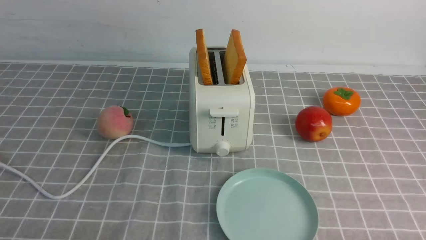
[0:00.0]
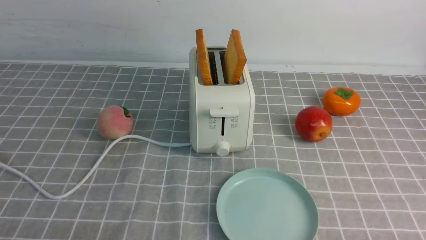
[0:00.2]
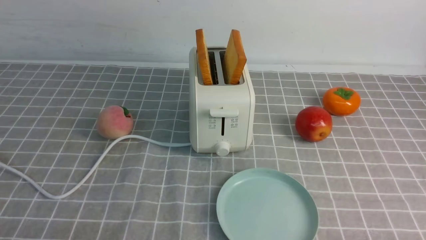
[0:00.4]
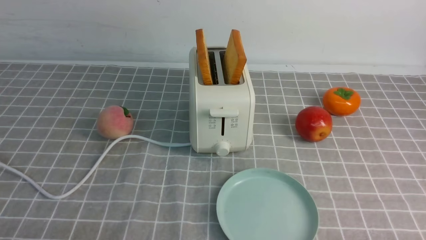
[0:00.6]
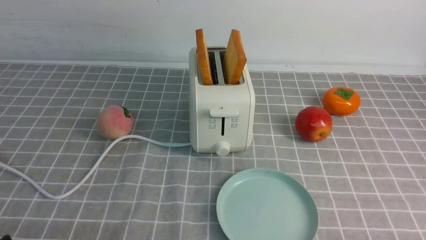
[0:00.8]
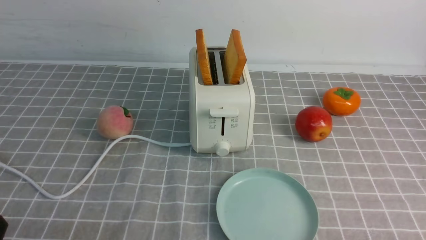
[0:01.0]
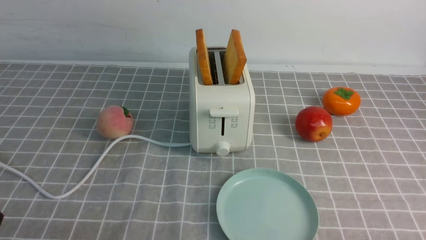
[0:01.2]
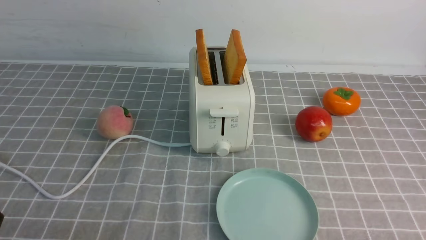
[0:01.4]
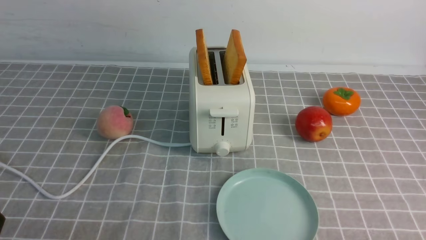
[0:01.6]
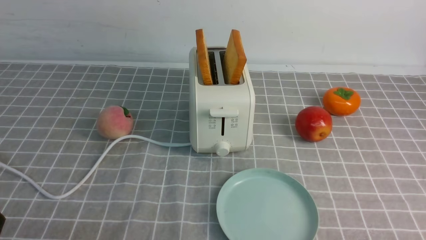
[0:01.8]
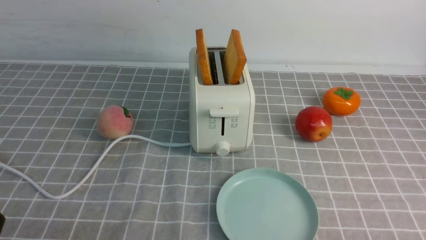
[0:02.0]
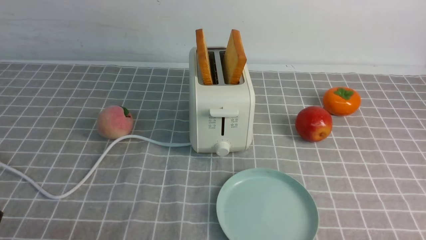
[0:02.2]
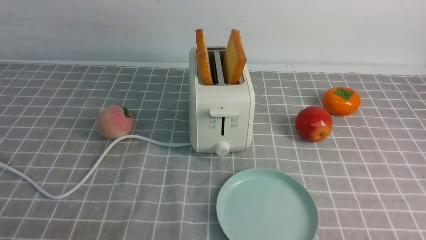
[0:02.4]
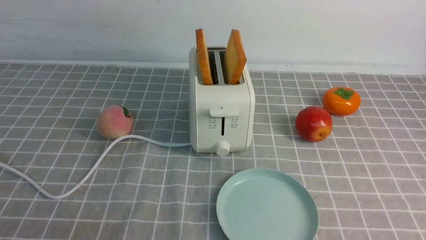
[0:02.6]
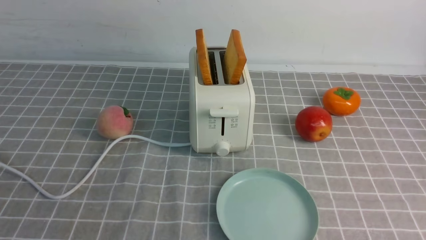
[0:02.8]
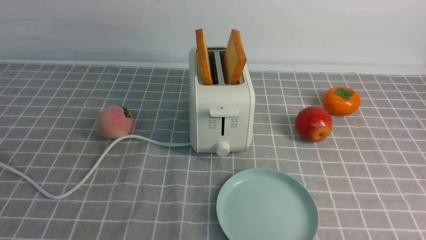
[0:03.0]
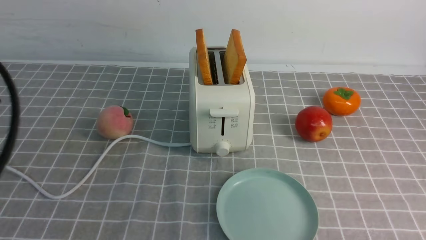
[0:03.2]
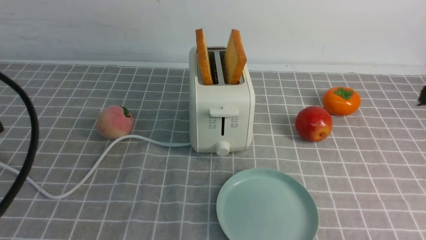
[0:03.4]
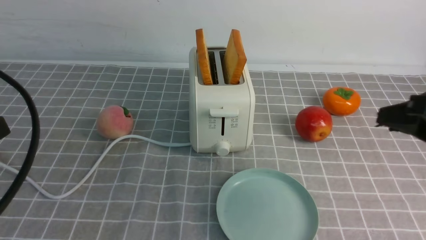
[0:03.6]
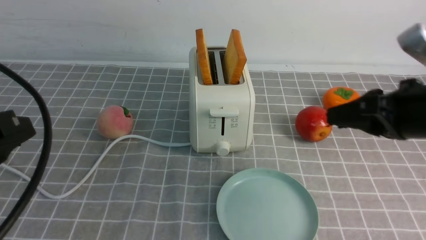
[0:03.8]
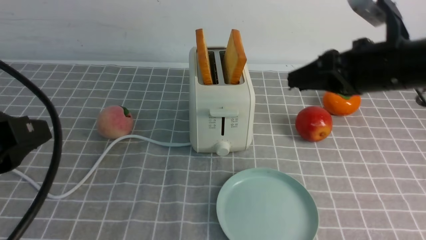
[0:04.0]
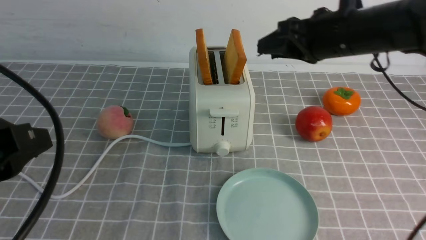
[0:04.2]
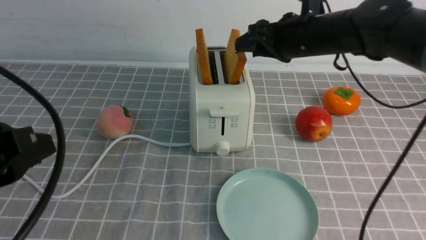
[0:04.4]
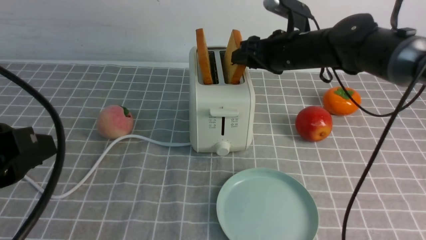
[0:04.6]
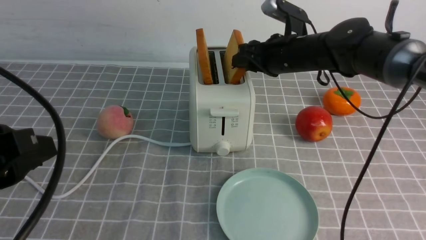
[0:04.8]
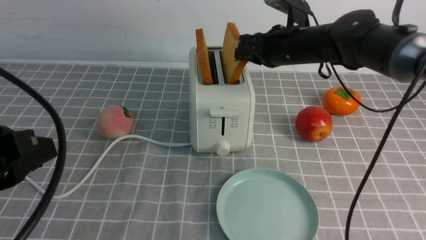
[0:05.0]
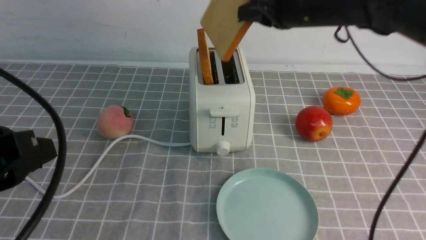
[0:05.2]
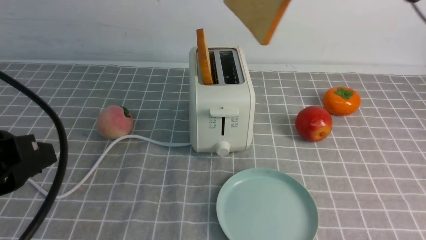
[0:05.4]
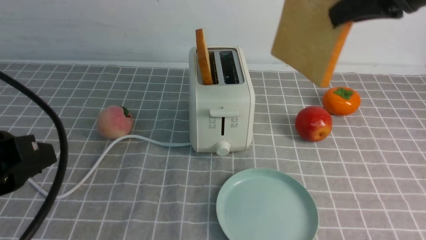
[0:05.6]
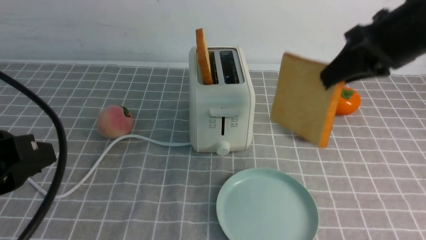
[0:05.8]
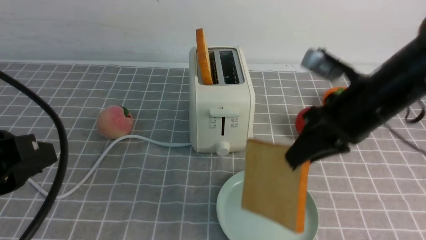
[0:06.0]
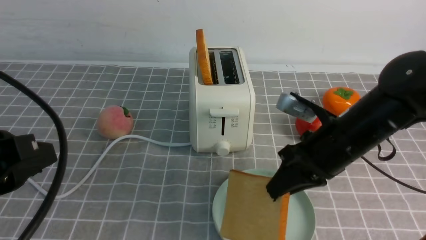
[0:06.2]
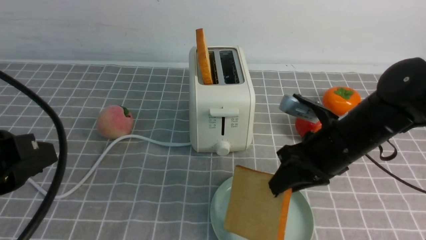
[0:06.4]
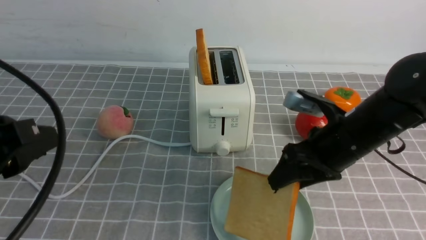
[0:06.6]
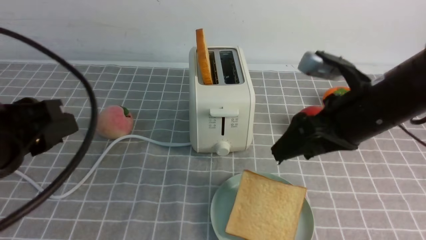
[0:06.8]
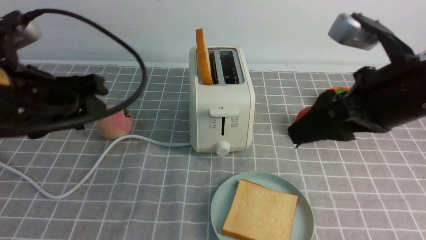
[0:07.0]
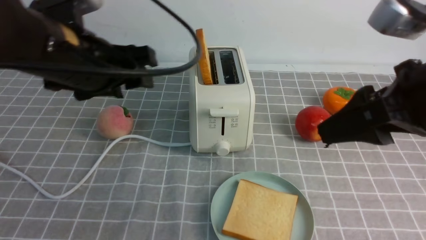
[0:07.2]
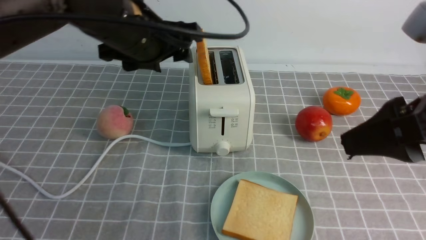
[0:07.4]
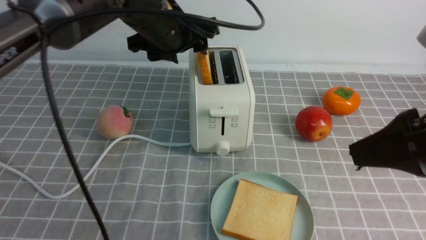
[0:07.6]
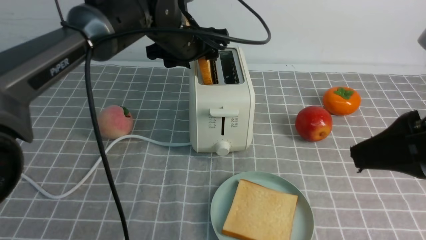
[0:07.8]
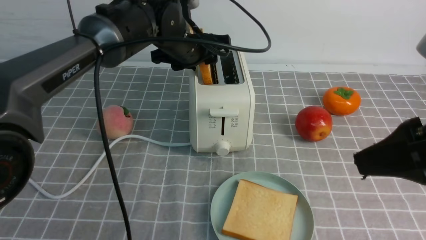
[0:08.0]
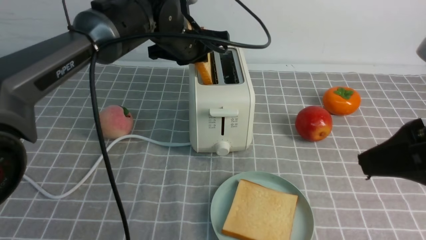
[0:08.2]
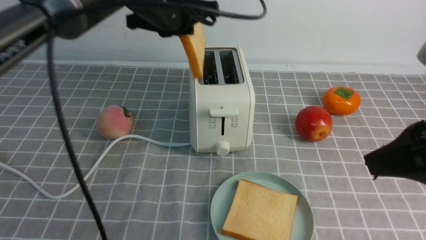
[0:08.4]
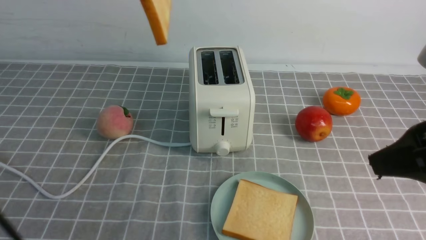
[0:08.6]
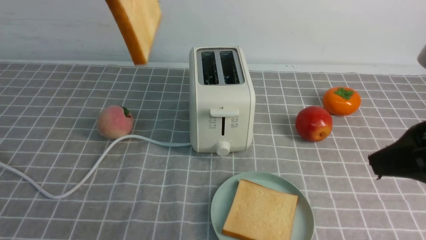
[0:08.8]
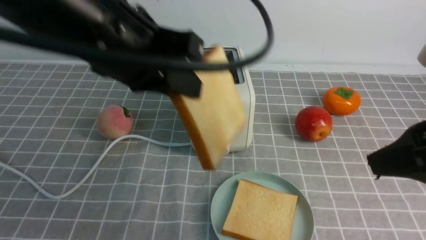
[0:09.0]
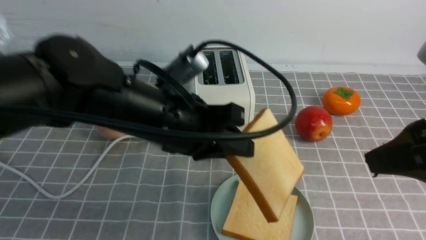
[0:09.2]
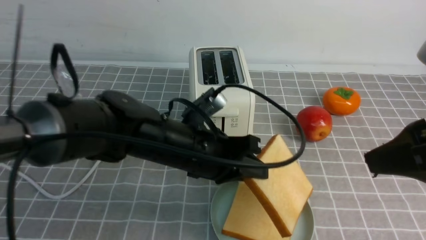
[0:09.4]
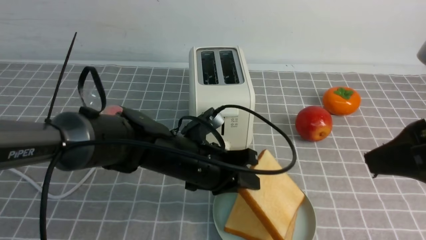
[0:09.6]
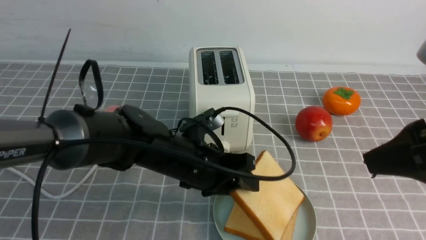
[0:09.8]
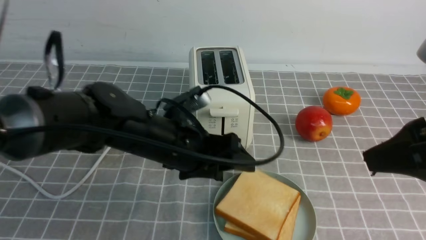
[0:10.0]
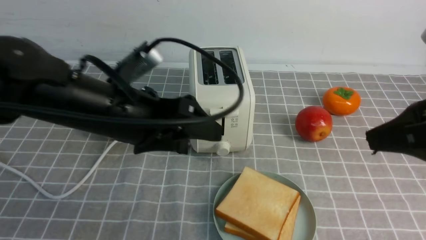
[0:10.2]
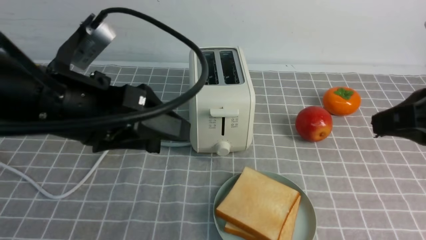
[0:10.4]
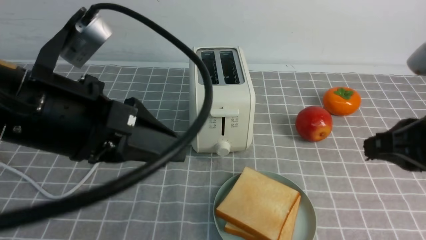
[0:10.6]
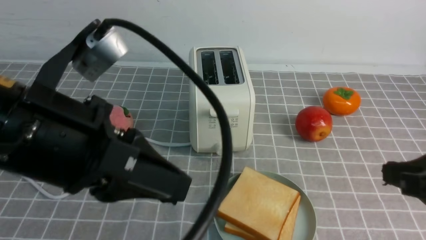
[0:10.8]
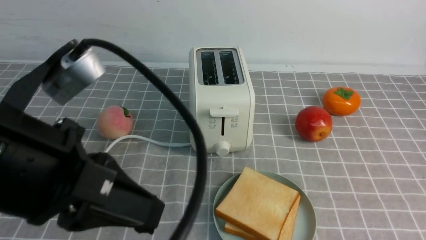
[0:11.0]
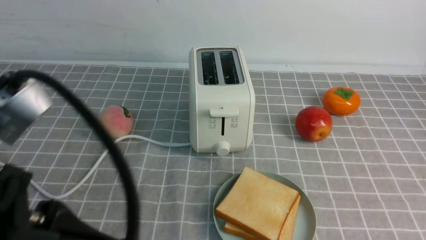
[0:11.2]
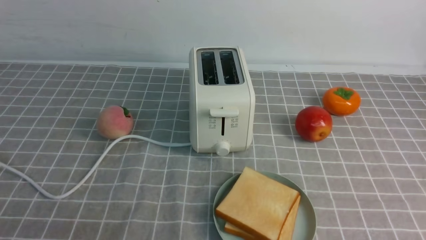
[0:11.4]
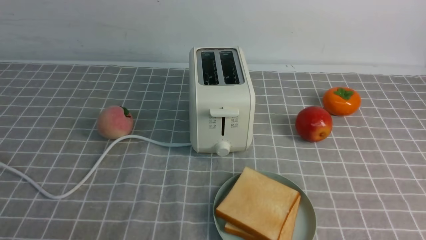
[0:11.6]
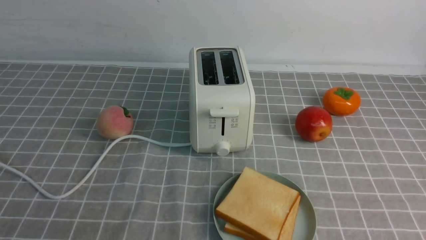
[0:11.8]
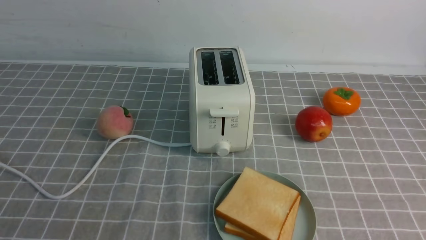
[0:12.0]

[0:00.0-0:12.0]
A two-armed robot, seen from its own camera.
Task of the whole recording: take toasted bread from bread machine on grey coffee table place on plate.
Step, 0:00.0 to 0:05.2: use the right arm to take out a slice of bread.
Step, 0:05.4 to 0:06.8: use the right arm to put a slice of bread into the plate.
Step, 0:07.0 to 0:08.6: use the left arm to take out a slice of bread.
Step, 0:08.8 to 0:10.0: use the left arm to put a slice of bread into the empty plate.
0:03.0 to 0:04.4: The right gripper is displaced forward and to the left by approximately 35 cm.
0:04.4 to 0:06.0: The right gripper goes about 10 cm backward, and closes up.
0:06.0 to 0:07.6: The right gripper goes roughly 15 cm backward and upward, and opens; the left gripper goes some 30 cm forward and to the right, and opens up.
0:07.6 to 0:09.0: The left gripper travels backward by roughly 15 cm, and closes up.
0:09.0 to 0:10.4: The right gripper closes up; the left gripper is displaced to the left by approximately 5 cm, moves about 20 cm downward and comes back, and opens its fingers.
0:10.4 to 0:12.0: The right gripper shifts about 15 cm backward, downward and to the right; the left gripper moves backward and to the left, roughly 20 cm, and closes up.
